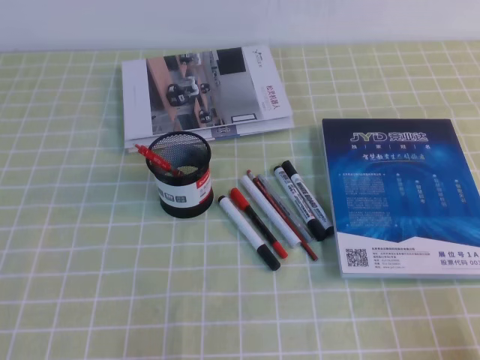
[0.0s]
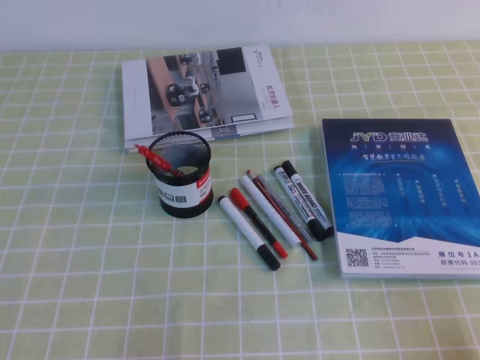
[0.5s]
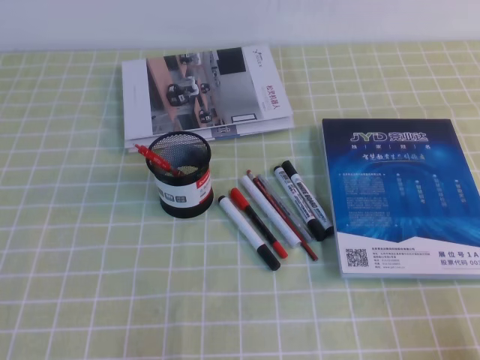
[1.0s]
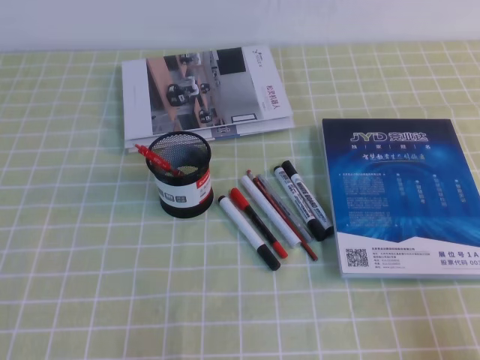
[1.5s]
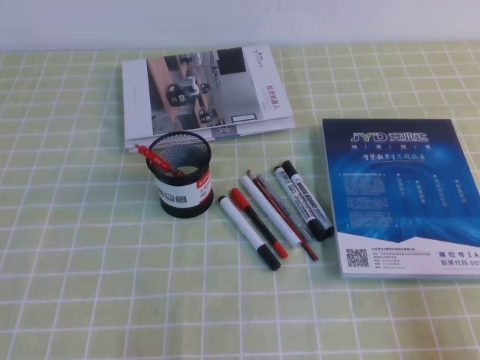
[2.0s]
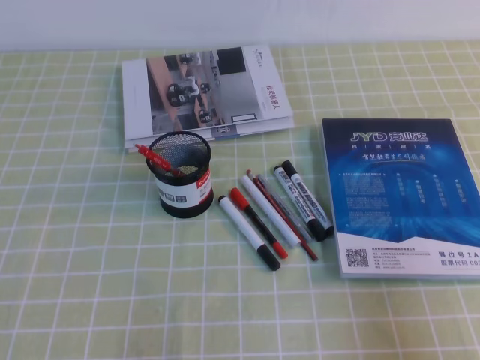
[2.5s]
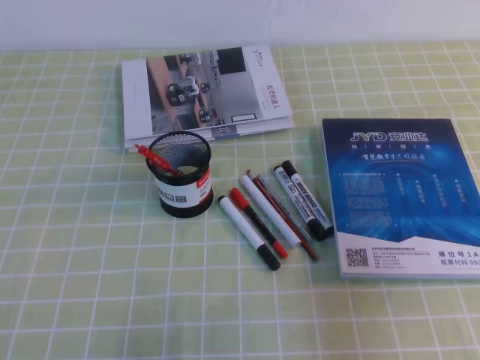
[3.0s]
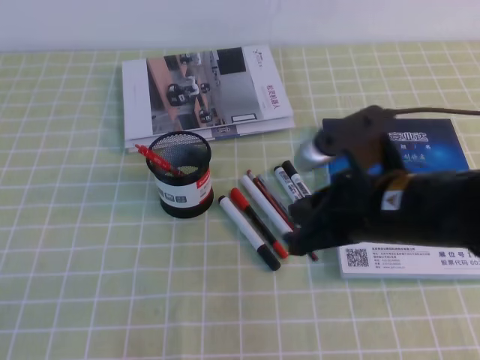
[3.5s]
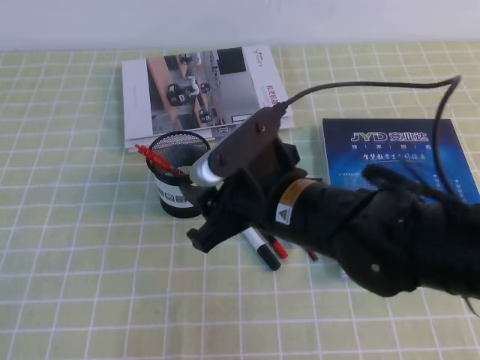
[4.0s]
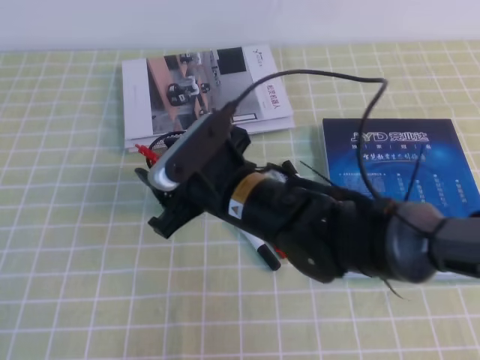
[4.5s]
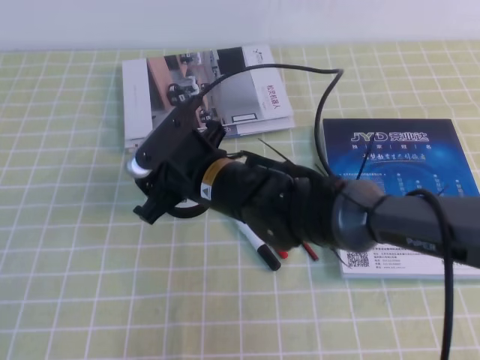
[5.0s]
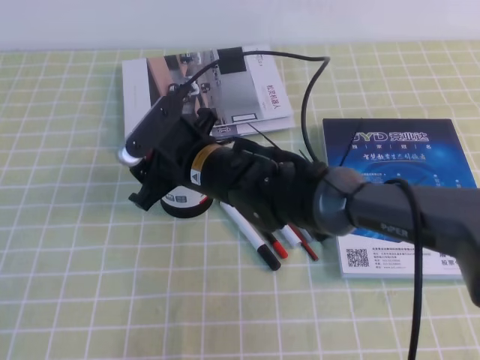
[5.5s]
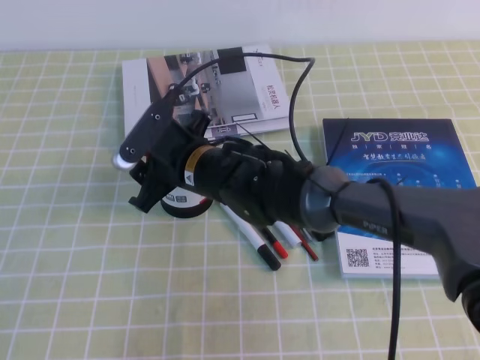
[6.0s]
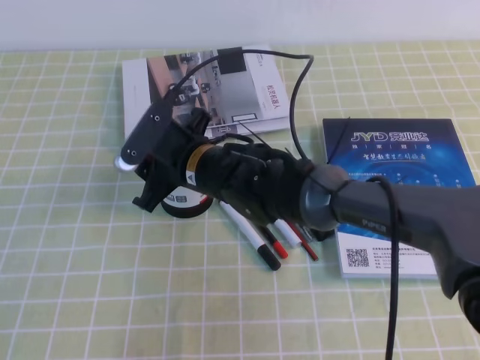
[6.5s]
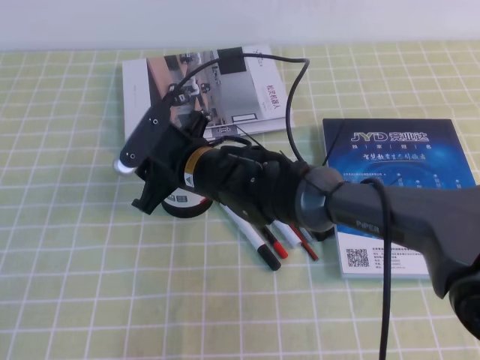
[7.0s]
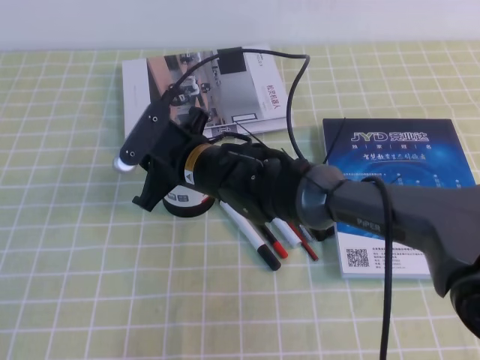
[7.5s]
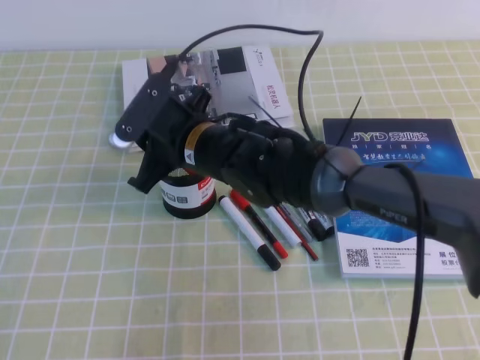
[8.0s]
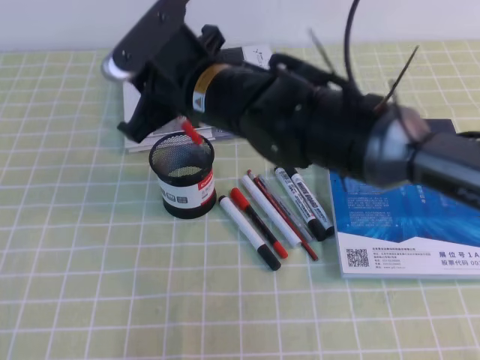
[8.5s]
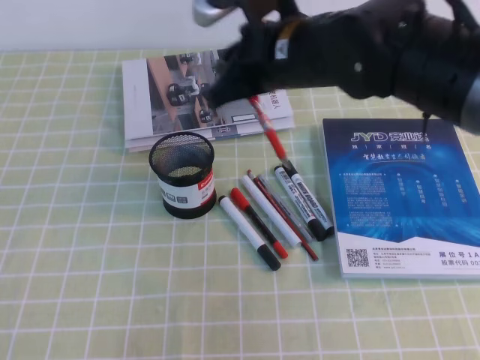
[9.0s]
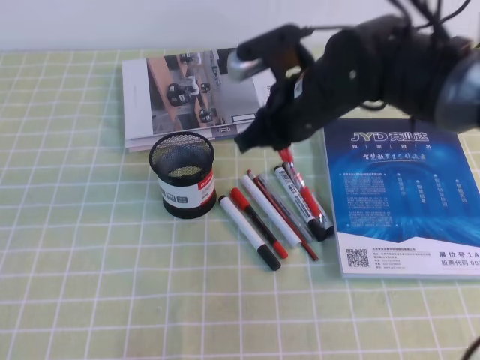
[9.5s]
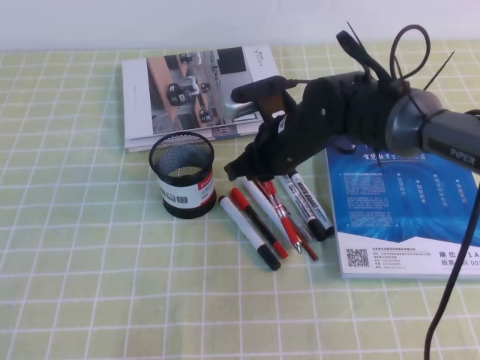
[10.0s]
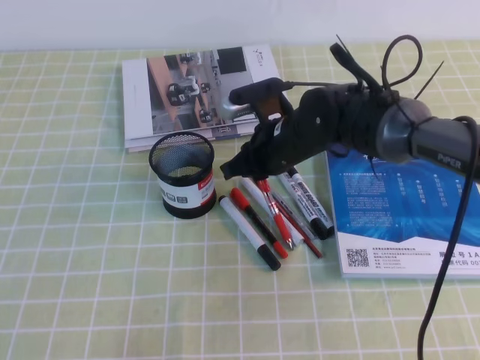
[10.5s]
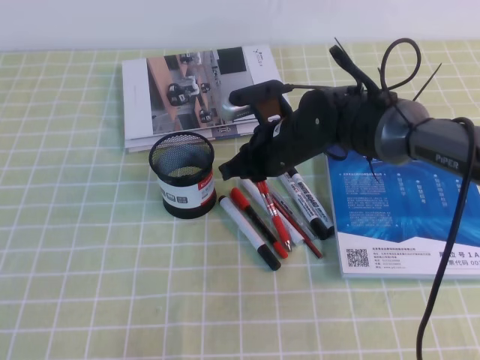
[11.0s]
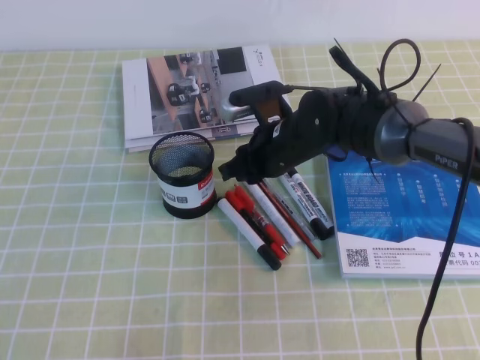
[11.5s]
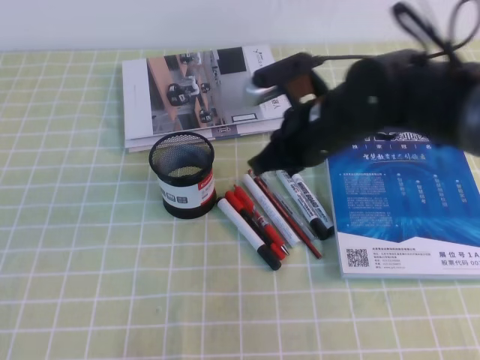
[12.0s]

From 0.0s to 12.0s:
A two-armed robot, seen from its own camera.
From 2.0s to 4.0s: The right gripper goes about 35 cm to the left and forward, and opens.
From 4.0s to 6.0s: The right gripper travels forward and to the left by approximately 15 cm.
From 6.0s to 8.0s: The right gripper closes its fingers.
From 8.0s to 10.0s: The right gripper is displaced to the right by approximately 10 cm, and goes upward and returns, some 10 cm each way.
From 10.0s to 12.0s: The right gripper changes place by about 5 cm, and opens and closes again.

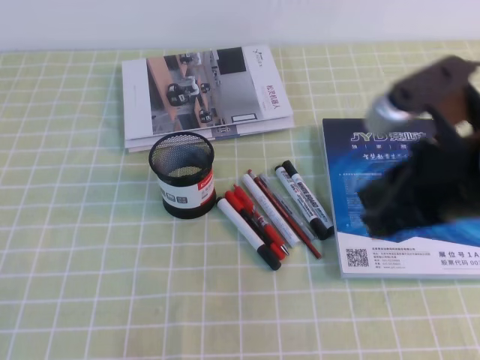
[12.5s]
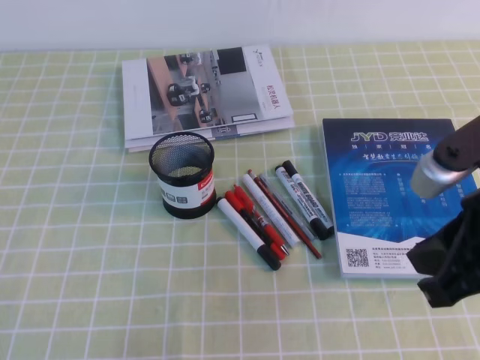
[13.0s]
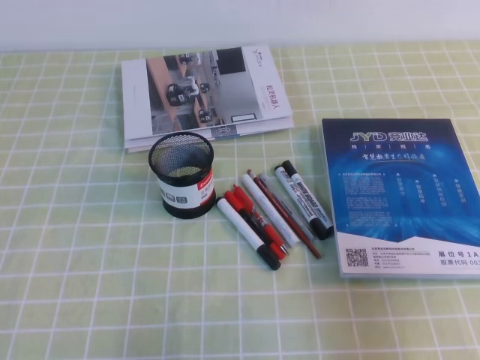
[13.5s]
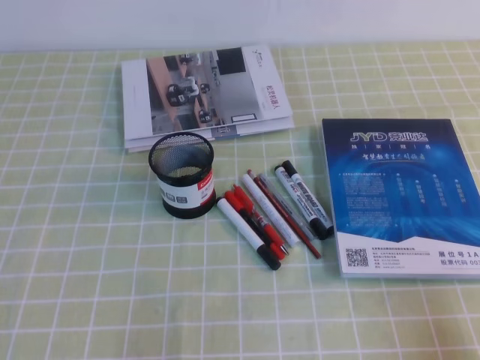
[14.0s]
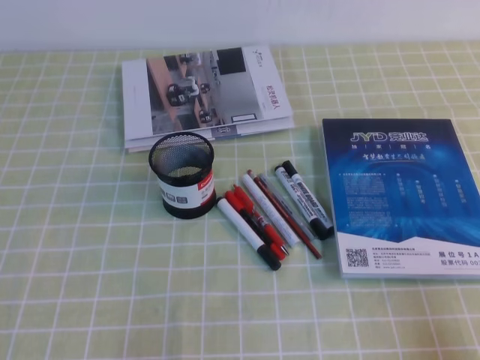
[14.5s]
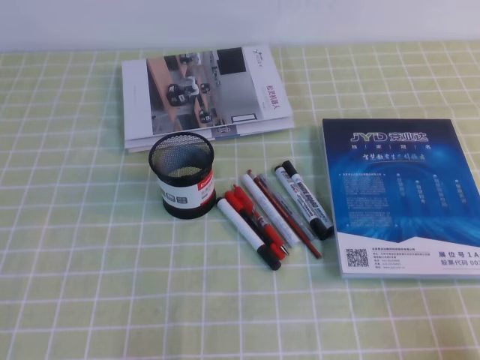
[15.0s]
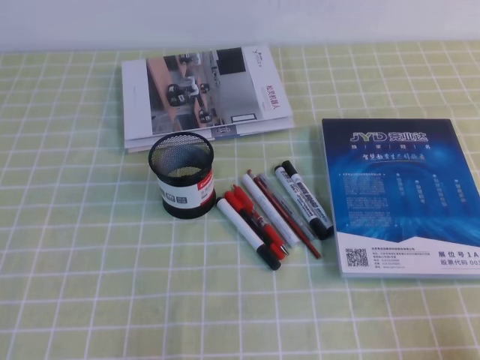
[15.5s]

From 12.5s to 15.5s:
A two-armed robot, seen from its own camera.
Step, from 12.5s to 15.5s: Pick up the pen from the pen holder.
From 12.5s to 14.0s: The right gripper heads to the right, backward and downward, covering some 25 cm.
